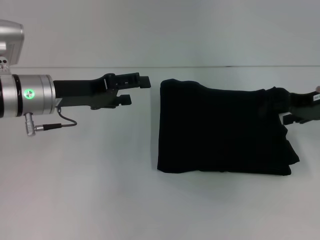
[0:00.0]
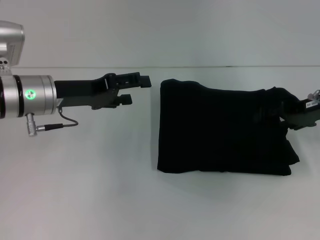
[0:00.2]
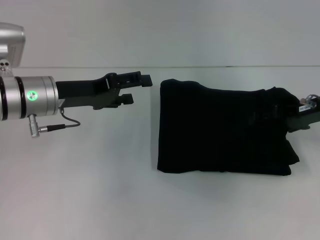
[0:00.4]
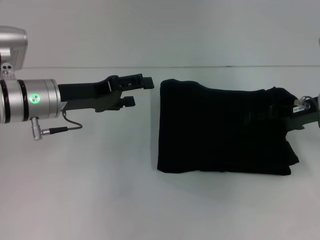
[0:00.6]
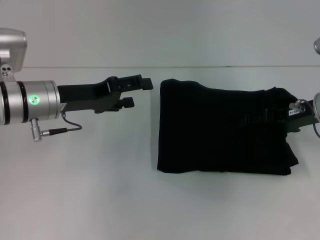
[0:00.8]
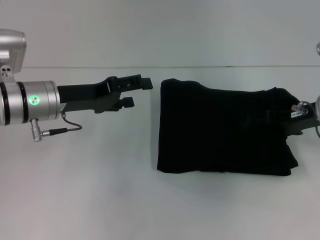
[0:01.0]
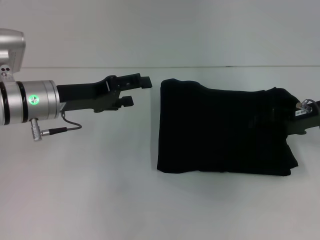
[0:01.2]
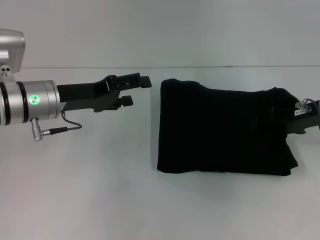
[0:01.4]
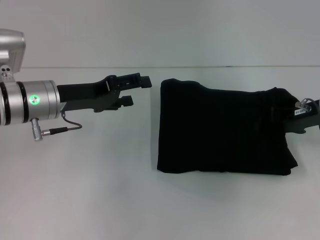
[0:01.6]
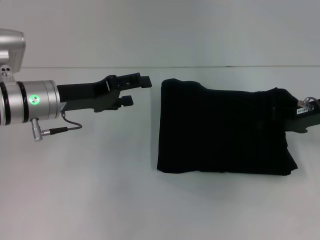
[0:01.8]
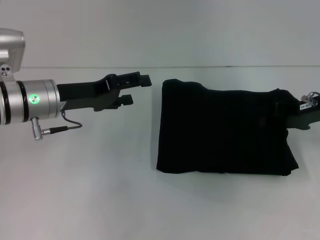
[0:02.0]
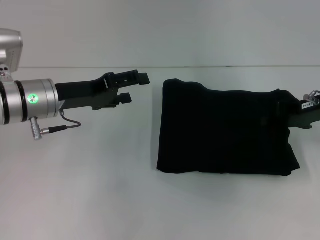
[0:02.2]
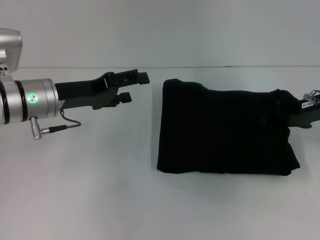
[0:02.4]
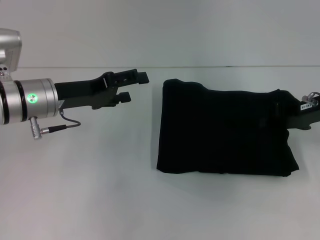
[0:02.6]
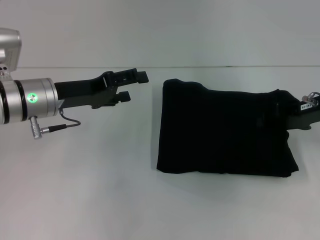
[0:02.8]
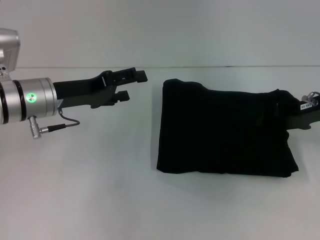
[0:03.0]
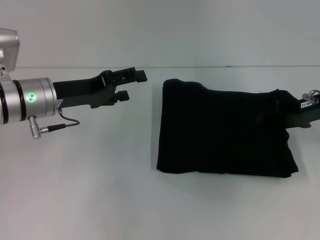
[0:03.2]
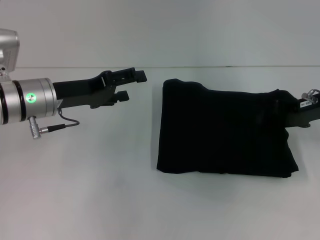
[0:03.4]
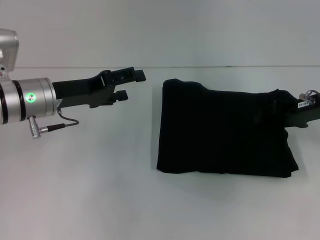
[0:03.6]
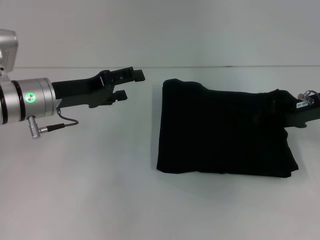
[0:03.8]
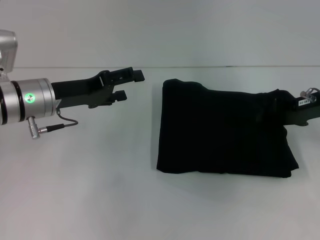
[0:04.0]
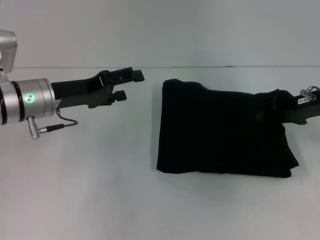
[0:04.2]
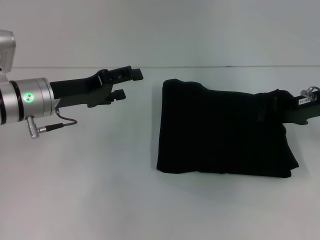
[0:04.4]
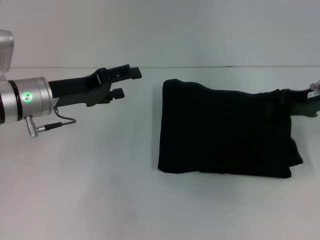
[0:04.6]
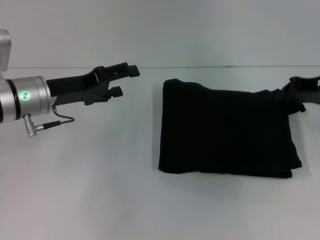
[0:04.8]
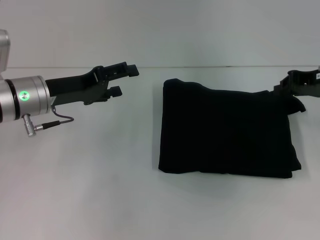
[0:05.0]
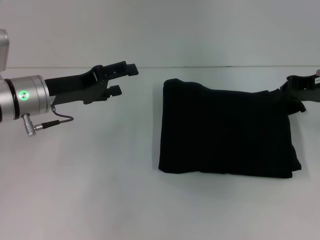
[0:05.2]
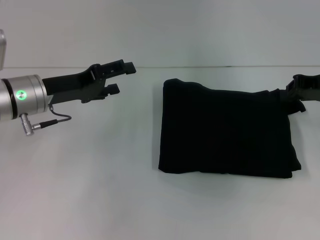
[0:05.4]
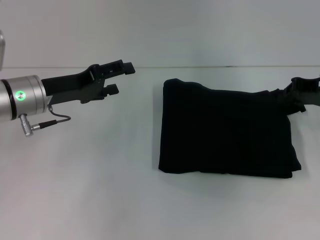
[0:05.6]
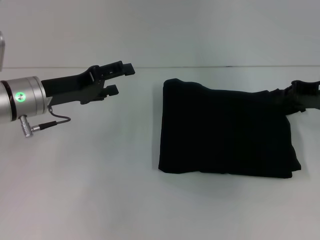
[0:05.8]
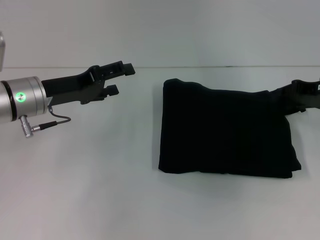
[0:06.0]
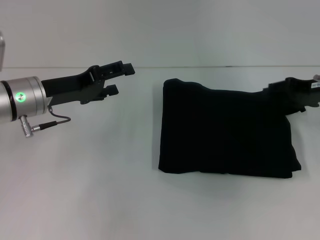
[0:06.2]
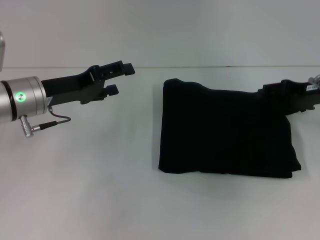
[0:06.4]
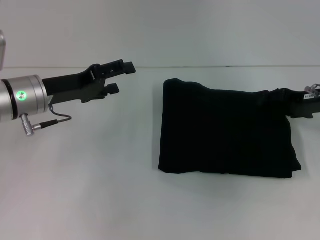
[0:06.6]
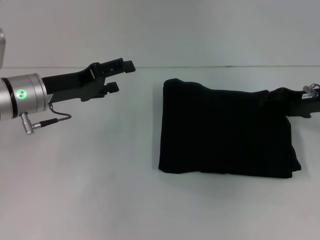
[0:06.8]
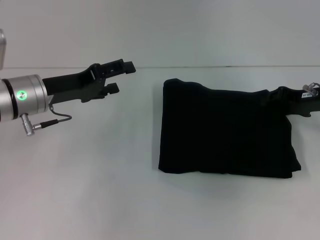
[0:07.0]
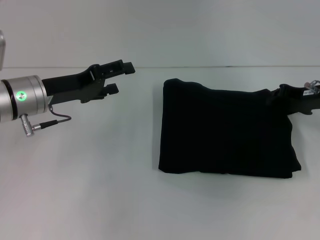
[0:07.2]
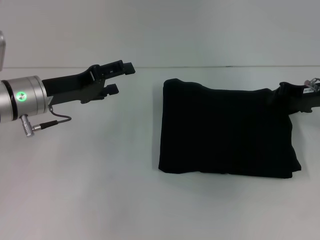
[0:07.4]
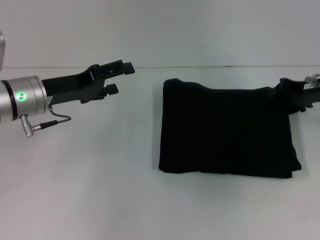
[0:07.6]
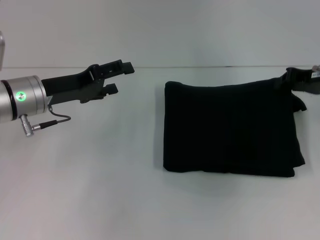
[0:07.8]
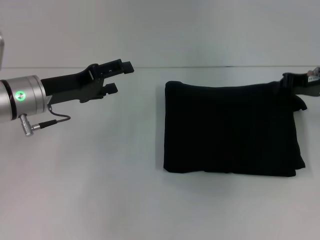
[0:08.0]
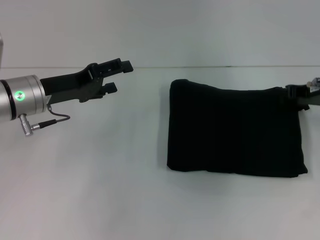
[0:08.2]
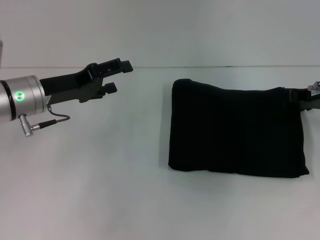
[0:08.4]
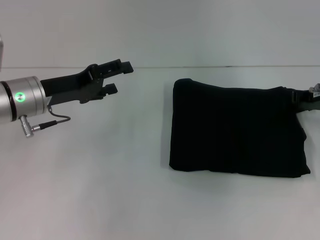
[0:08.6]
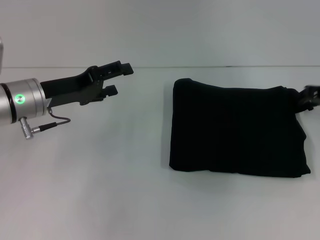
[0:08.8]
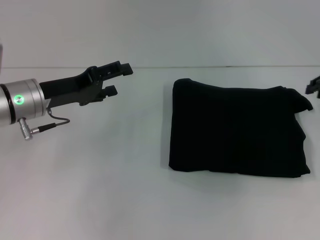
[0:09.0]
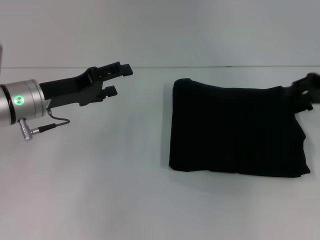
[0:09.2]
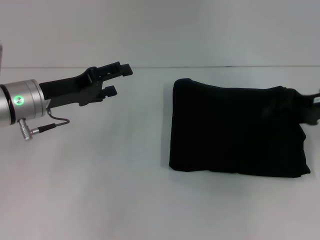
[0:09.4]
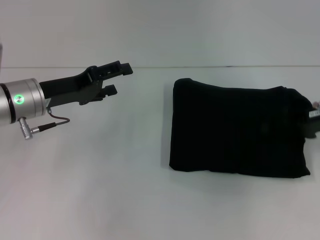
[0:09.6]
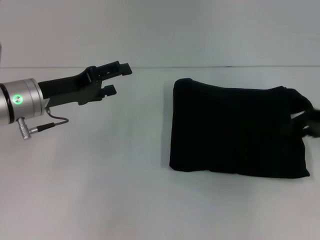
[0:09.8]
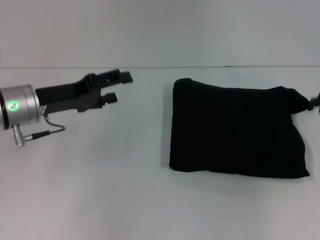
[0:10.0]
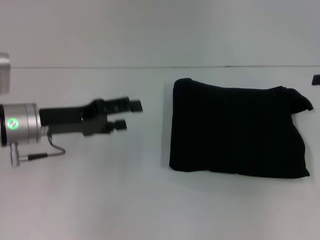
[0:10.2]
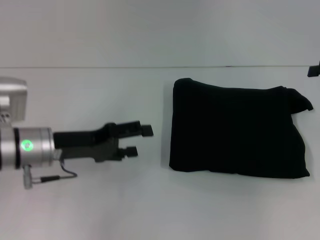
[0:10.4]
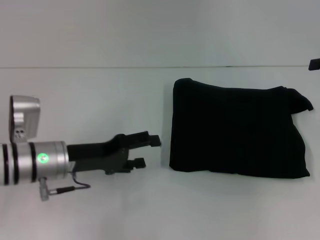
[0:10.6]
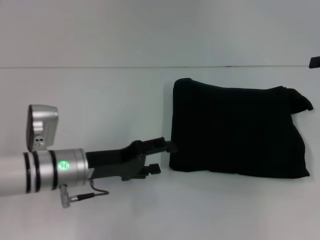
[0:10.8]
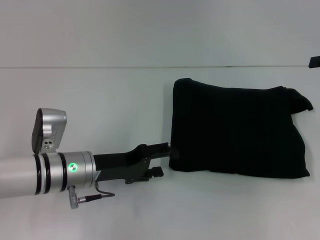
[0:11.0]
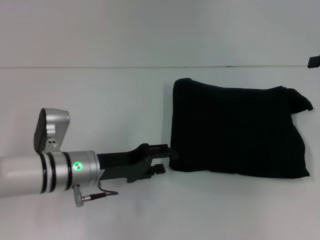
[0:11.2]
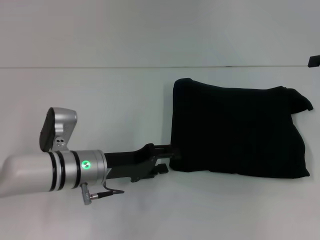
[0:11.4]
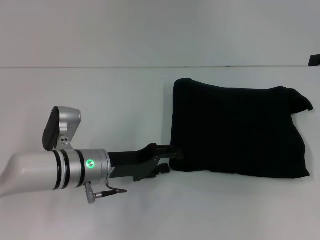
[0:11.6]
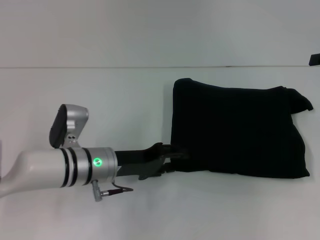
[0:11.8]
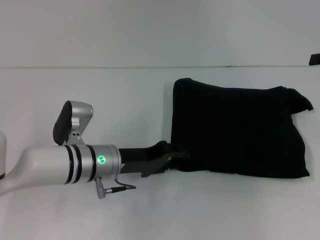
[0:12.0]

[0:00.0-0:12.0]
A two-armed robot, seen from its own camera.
0:00.0 to 0:01.6: The right gripper closes its fingers.
0:01.6 to 0:03.0: The grippers move only a little.
0:03.0 to 0:04.4: Both grippers stay about where they are.
0:04.4 to 0:06.0: The grippers move only a little.
0:06.0 to 0:07.6: The right gripper opens, then closes once more.
0:07.6 to 0:09.0: The right gripper ends up about 5 cm from where it was.
0:09.0 to 0:10.4: The left gripper shifts by roughly 5 cm; the right gripper moves some 5 cm.
0:10.4 to 0:12.0: The left gripper heads to the right and downward, covering about 10 cm, and closes up.

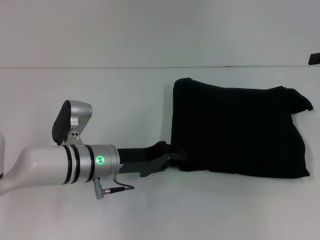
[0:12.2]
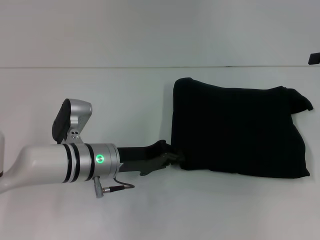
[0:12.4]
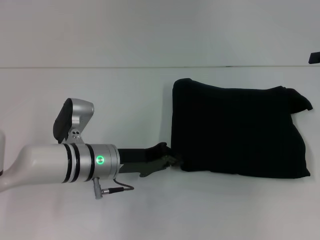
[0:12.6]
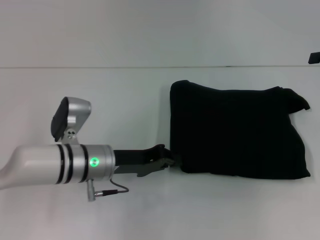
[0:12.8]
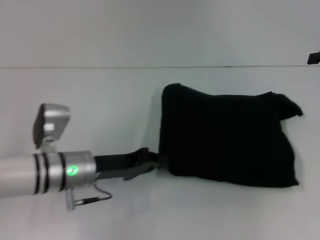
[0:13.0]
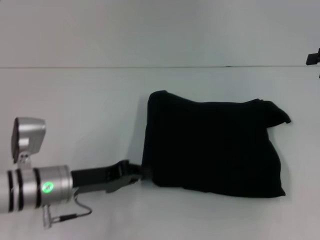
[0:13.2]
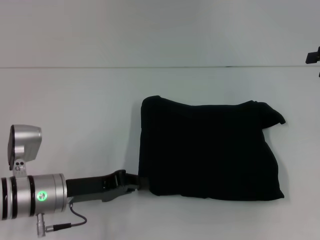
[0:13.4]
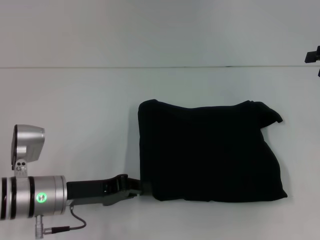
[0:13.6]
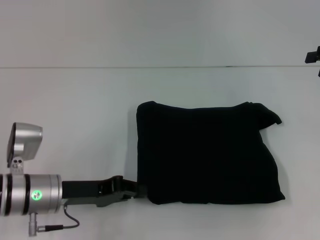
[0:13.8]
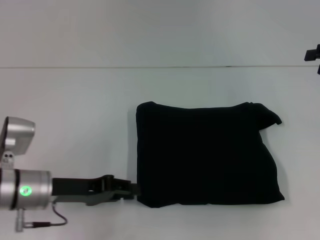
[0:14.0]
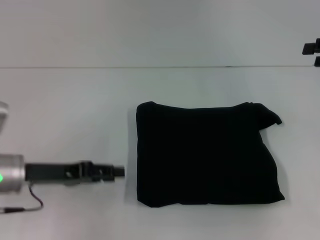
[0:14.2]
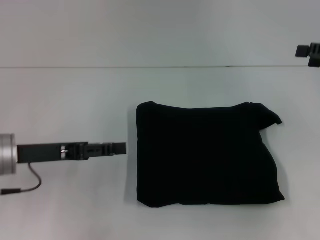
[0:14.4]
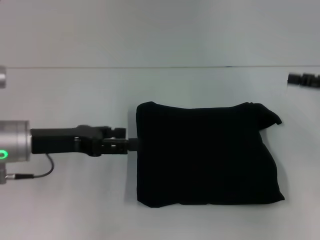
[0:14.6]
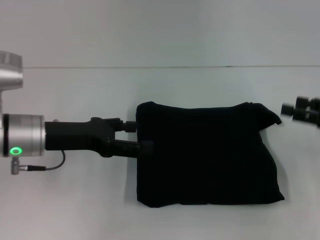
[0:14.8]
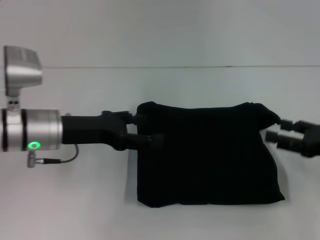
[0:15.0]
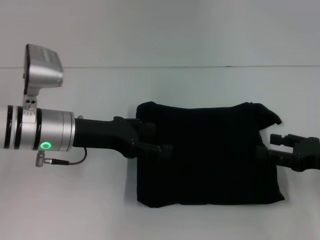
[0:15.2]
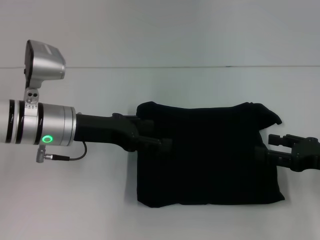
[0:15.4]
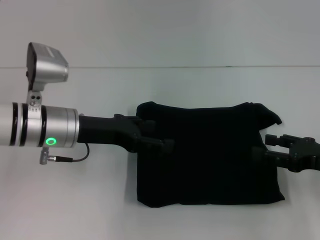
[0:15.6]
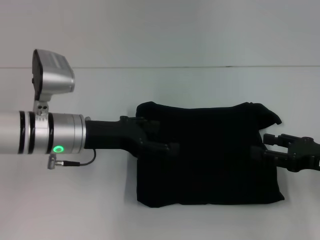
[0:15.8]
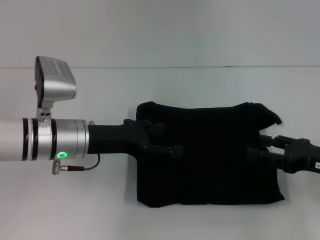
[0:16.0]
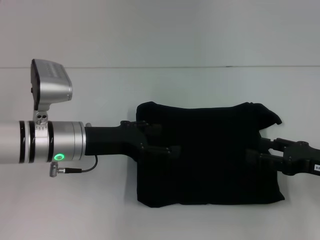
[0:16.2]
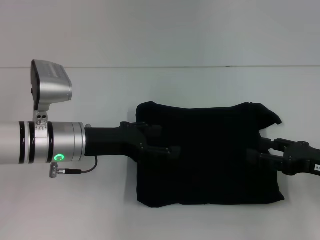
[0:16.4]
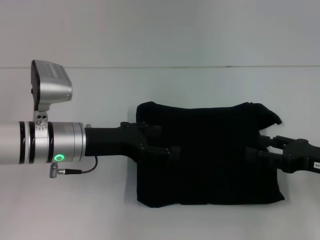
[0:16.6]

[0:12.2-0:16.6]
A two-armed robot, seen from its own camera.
0:12.2 to 0:13.6: The left gripper is displaced to the left and backward by about 10 cm, and closes its fingers.
0:13.6 to 0:15.2: The left gripper shifts some 10 cm upward and forward, and opens up. Meanwhile the right gripper is displaced downward, backward and to the left by roughly 20 cm.
0:15.2 to 0:16.6: The grippers make only small movements.

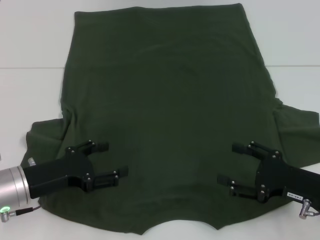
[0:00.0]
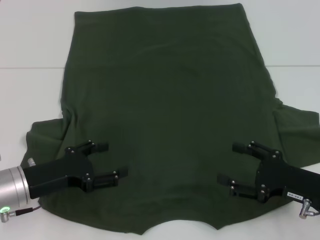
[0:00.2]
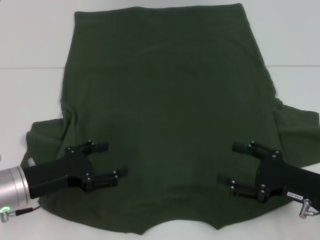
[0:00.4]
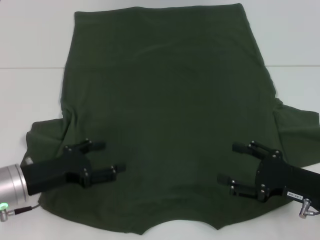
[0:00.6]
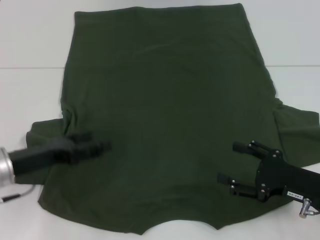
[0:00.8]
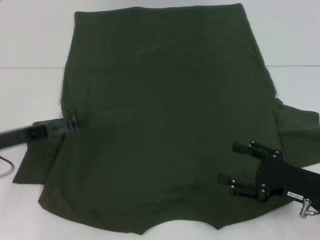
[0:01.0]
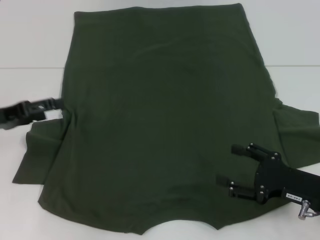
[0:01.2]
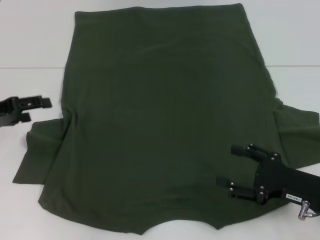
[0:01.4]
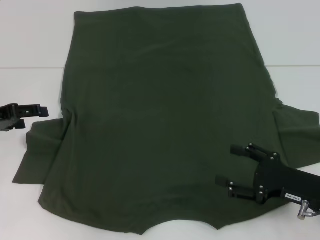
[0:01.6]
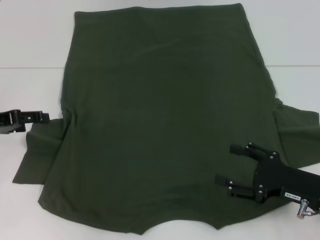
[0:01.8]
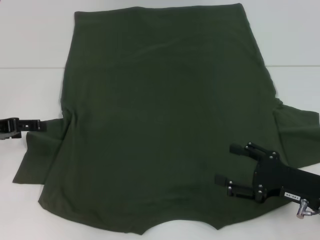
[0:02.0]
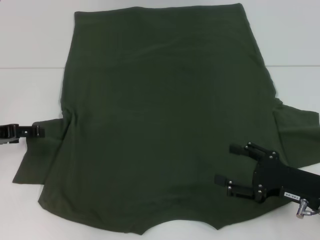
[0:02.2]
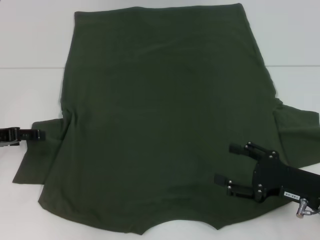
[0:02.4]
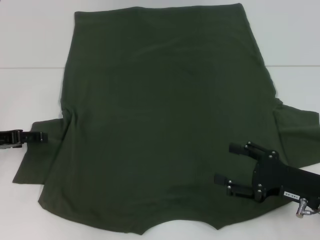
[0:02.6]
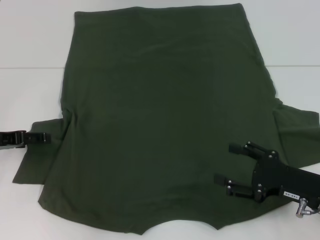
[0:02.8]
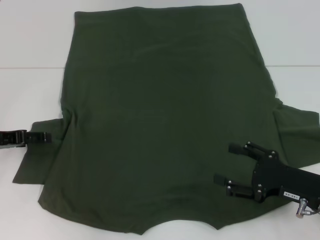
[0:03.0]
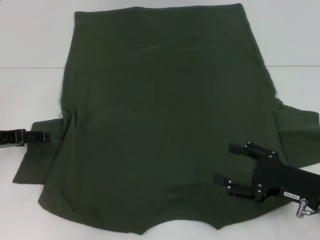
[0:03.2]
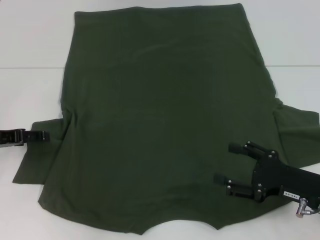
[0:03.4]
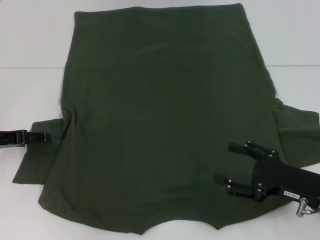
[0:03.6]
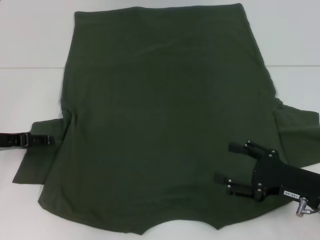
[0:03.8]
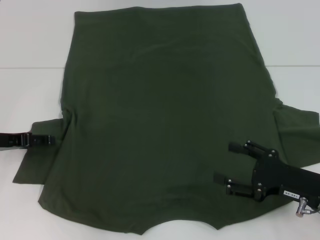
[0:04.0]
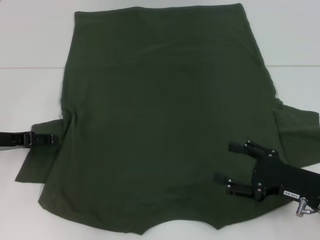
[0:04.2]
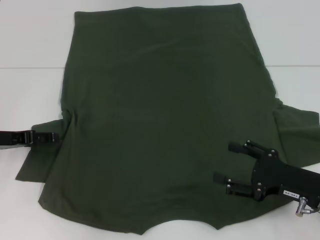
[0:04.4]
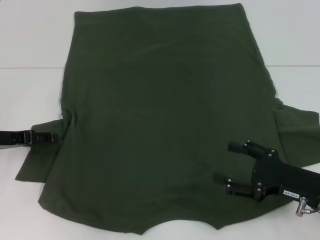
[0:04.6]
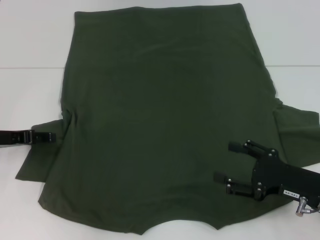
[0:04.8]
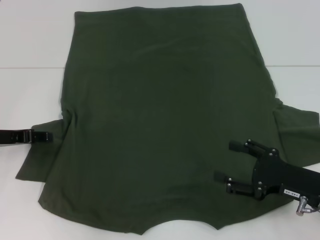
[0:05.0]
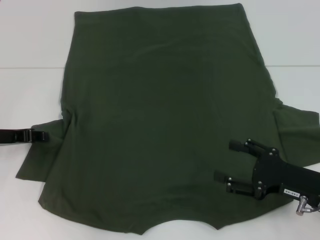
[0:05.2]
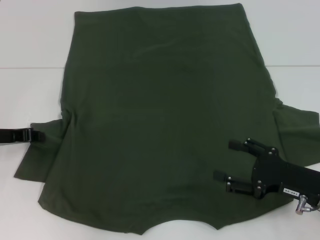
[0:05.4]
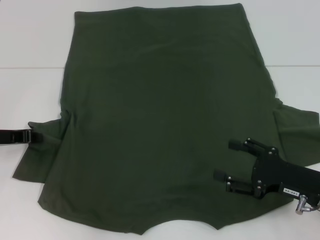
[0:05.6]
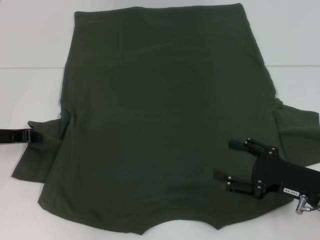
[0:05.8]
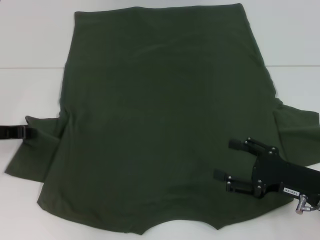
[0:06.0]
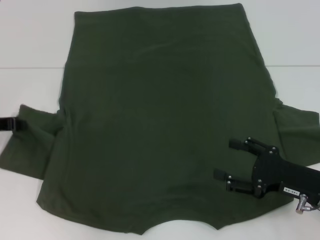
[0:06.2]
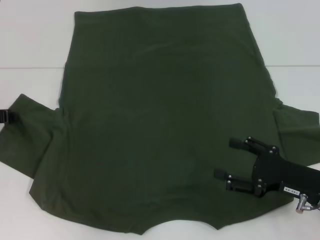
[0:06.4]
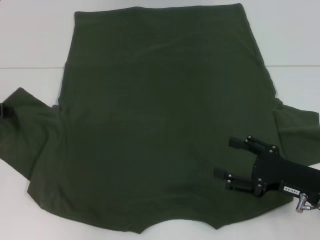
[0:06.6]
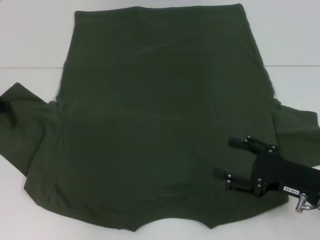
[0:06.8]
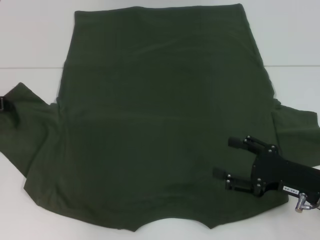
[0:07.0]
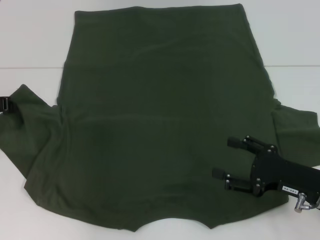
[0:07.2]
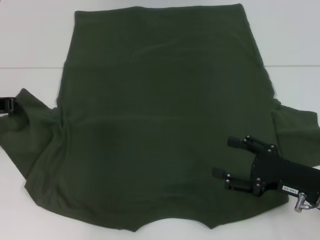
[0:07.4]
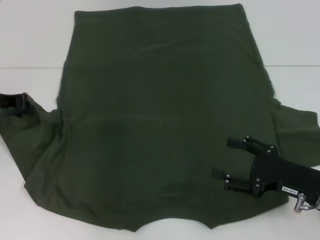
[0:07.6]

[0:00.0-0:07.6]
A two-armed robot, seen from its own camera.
0:00.0 to 0:01.6: The left gripper goes about 15 cm to the left, forward and upward.
0:01.6 to 0:03.0: The grippers move only a little.
0:03.0 to 0:04.6: Both grippers stay put.
0:04.6 to 0:06.0: The left gripper closes up.
0:06.0 to 0:07.6: The left gripper is displaced upward by roughly 5 cm.
